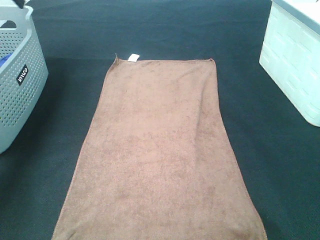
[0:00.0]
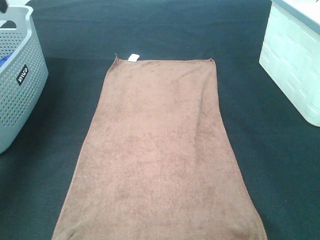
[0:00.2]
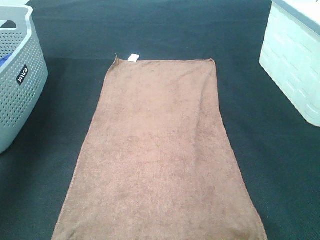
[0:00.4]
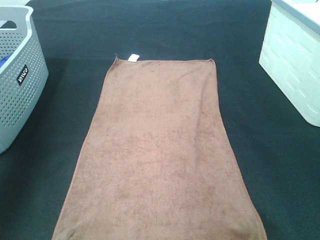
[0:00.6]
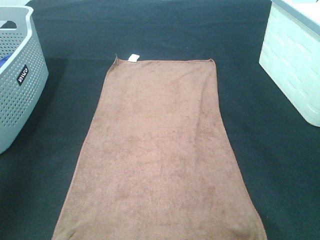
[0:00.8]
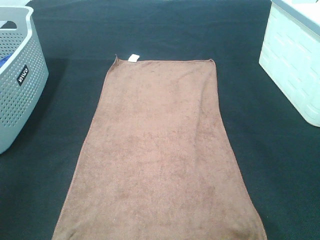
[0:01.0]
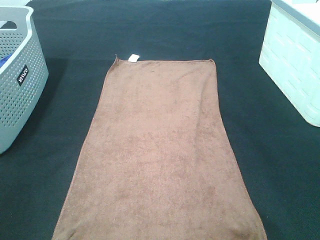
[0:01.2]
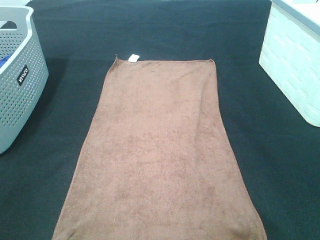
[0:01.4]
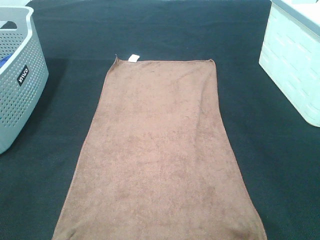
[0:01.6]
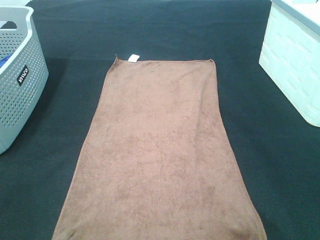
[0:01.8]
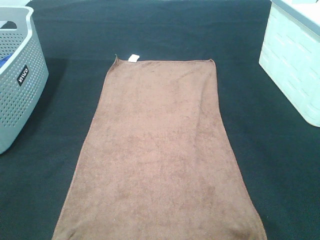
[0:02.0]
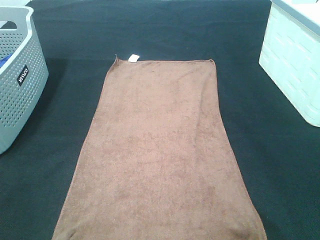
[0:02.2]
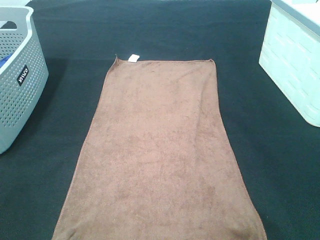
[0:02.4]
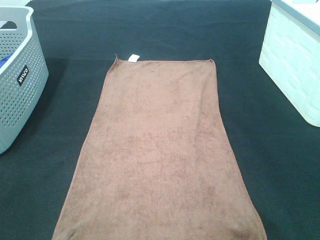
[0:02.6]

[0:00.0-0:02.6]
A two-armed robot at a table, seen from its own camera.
Task of the whole recording: Remove the towel and place it.
0:00.0 to 0:01.2: The left gripper is displaced backward by approximately 40 cm.

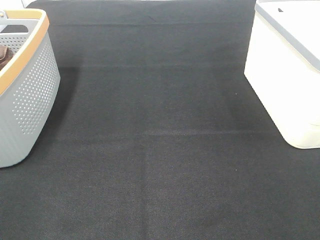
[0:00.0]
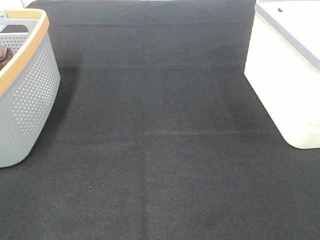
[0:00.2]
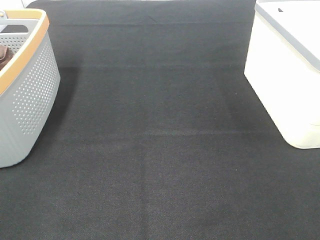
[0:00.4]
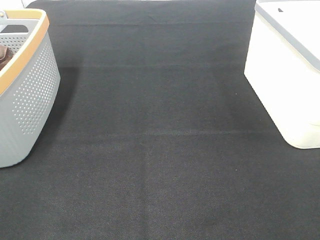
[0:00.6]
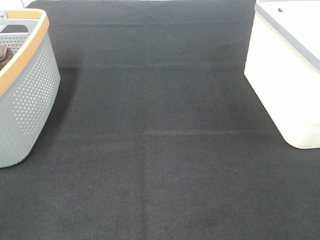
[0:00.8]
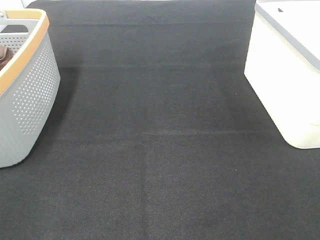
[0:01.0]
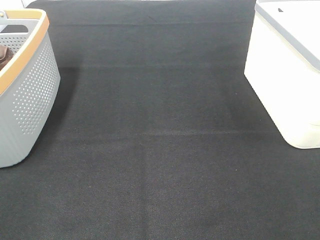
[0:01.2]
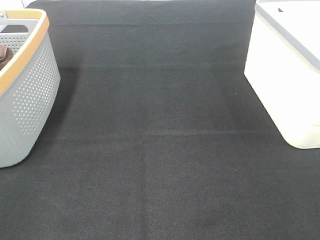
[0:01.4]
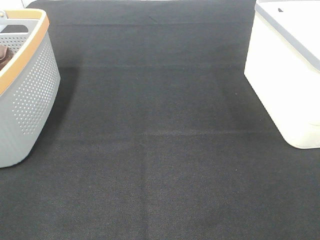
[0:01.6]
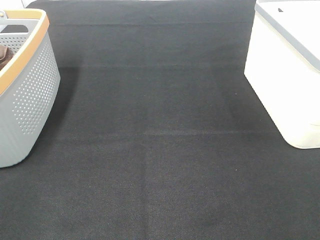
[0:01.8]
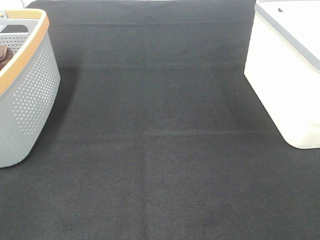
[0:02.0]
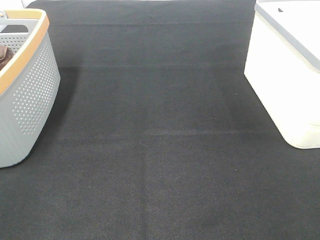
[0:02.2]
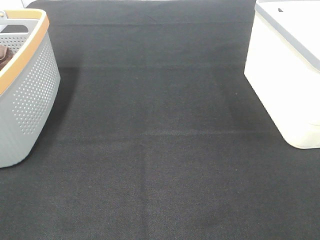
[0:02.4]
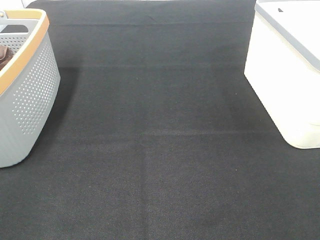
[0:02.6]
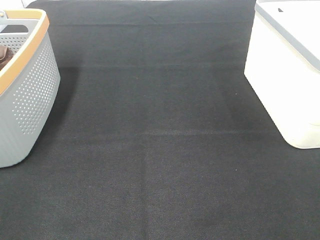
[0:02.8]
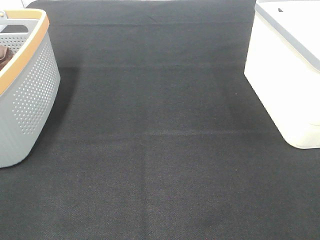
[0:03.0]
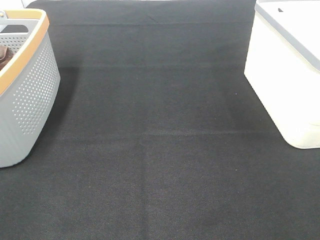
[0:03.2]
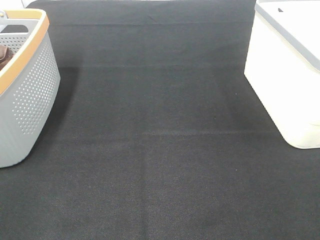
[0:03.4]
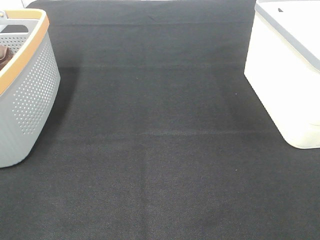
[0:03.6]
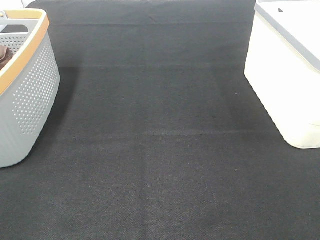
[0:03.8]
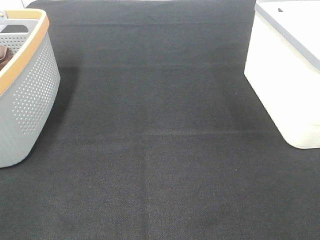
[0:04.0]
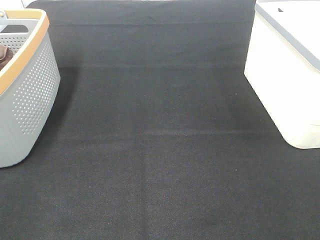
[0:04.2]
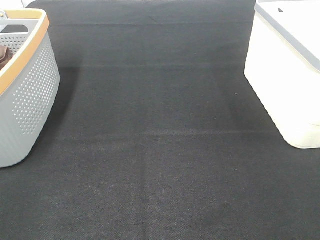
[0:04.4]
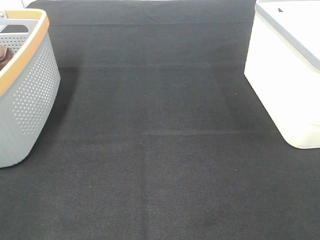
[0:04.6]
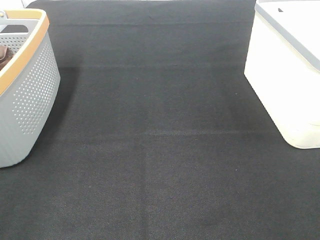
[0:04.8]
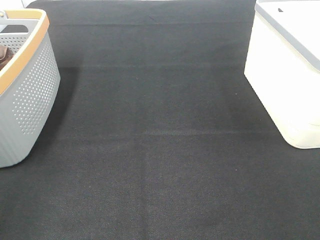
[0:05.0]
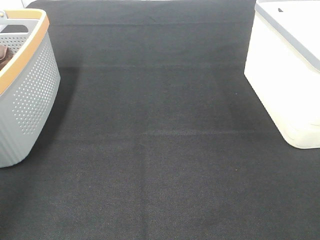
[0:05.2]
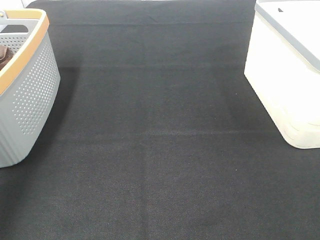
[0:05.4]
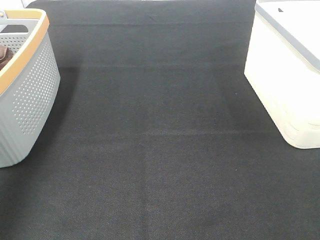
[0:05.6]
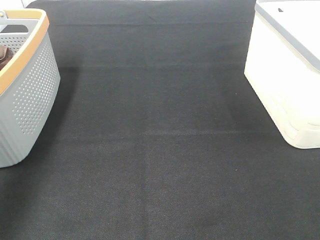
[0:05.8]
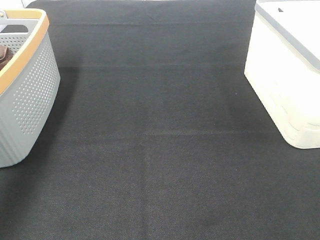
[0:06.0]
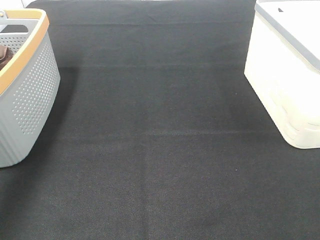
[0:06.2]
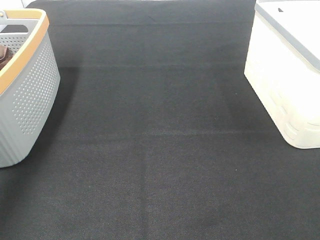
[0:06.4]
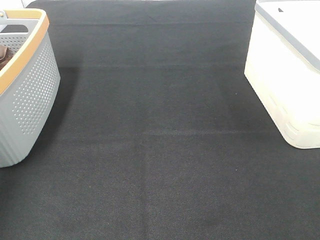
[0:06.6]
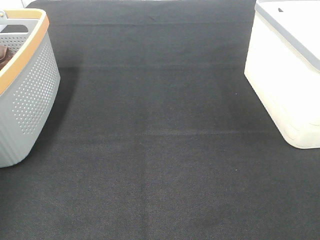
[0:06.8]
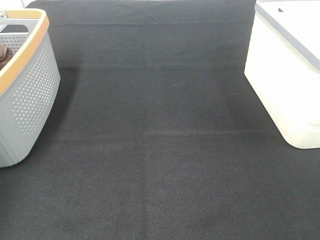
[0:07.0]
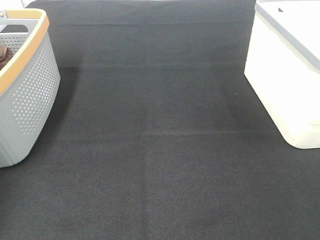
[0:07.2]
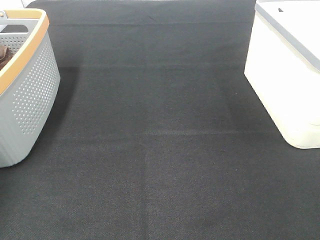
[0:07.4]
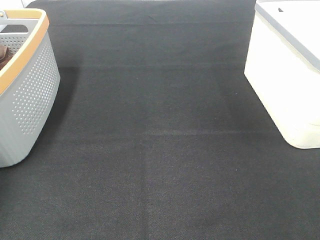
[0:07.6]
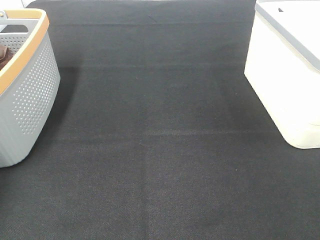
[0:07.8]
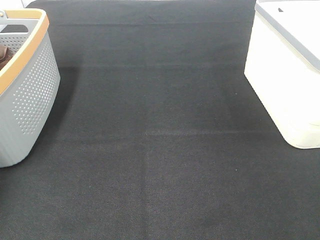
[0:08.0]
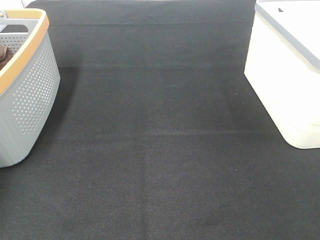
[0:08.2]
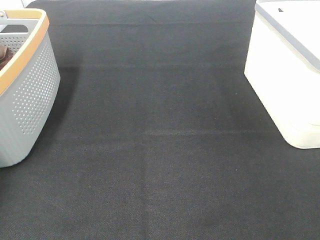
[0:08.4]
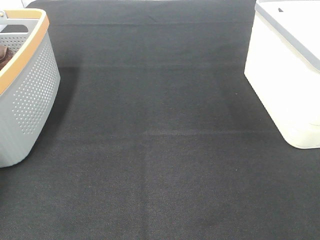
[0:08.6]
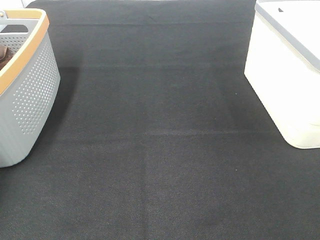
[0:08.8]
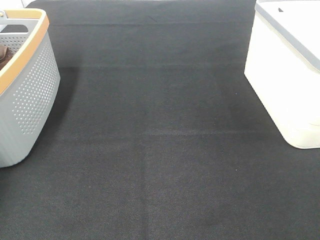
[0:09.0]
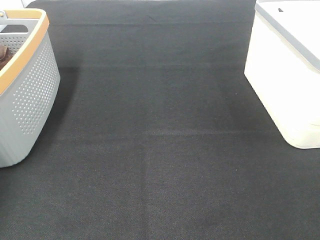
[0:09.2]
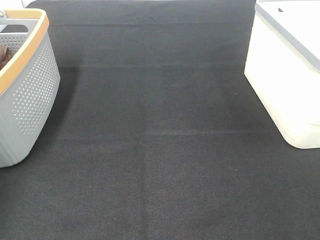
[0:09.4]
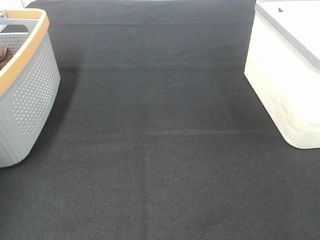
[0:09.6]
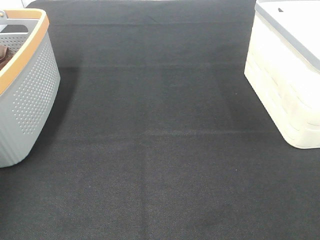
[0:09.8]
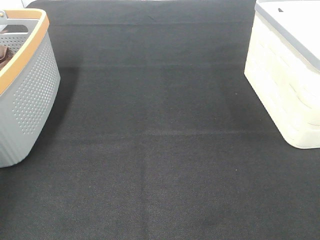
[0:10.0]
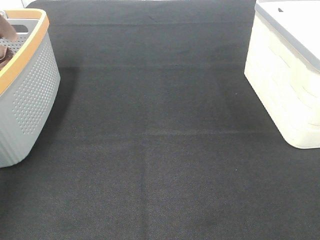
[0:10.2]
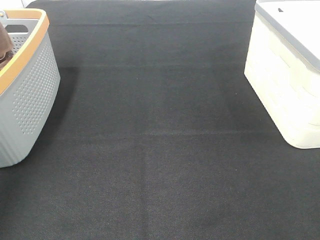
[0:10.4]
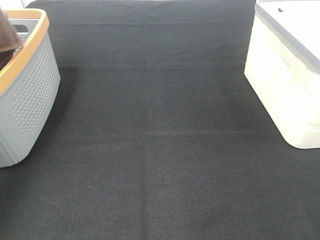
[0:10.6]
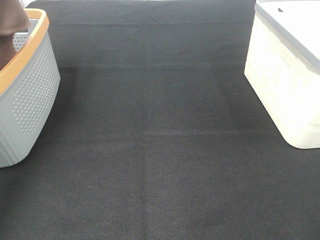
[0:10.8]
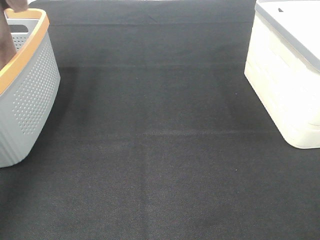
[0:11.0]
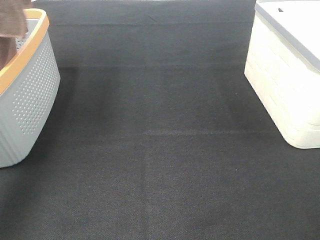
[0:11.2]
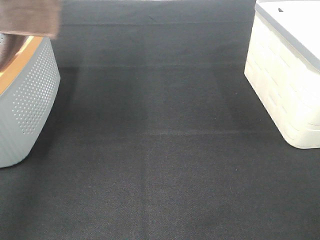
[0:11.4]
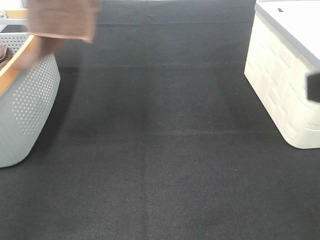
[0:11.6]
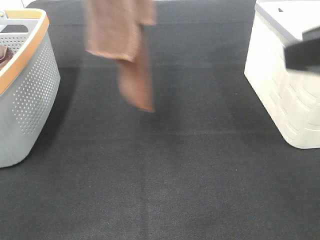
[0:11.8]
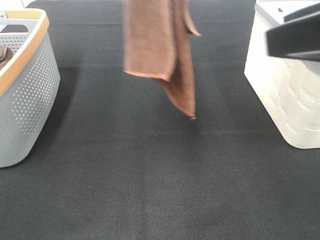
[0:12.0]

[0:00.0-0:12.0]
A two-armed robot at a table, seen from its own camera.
Task of the whole recording: Remove the towel and place it.
Step, 0:09.6 to 0:11.8: Right hand: grab a corner of the brown towel and straighten it.
0:00.0 to 0:04.4: Both grippers stay about where they are.
0:04.4 to 0:06.0: The left gripper travels forward by some 30 cm.
0:06.0 to 0:07.6: The left gripper moves forward, downward and to the left, about 20 cm.
0:09.0 to 0:10.4: The left gripper shifts approximately 35 cm upward and backward.
0:10.4 to 0:12.0: The left gripper heads to the right, covering approximately 25 cm, while the right gripper heads forward, upward and to the left, covering some 15 cm.

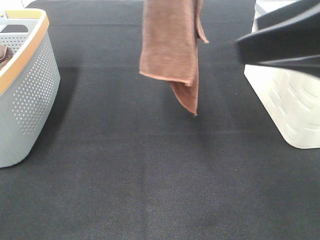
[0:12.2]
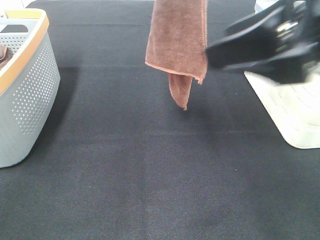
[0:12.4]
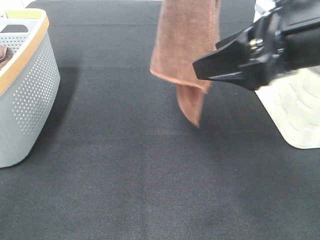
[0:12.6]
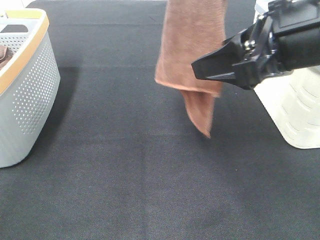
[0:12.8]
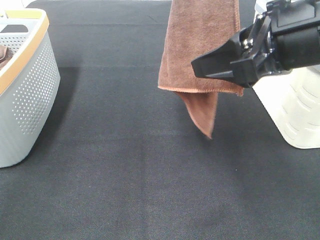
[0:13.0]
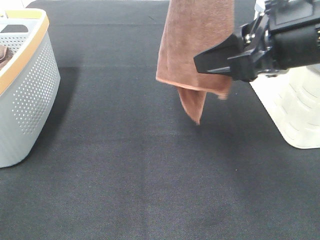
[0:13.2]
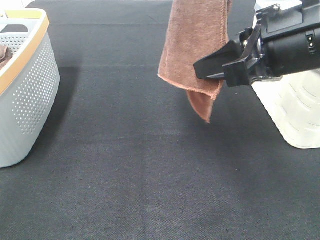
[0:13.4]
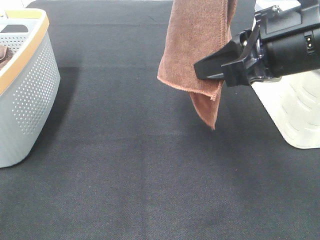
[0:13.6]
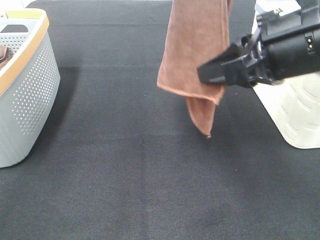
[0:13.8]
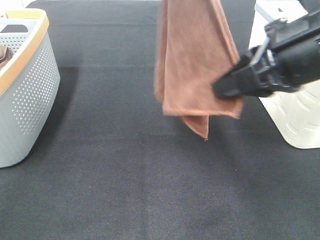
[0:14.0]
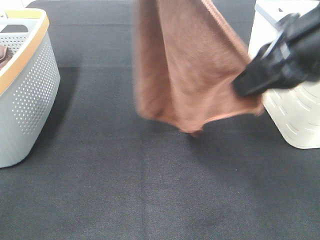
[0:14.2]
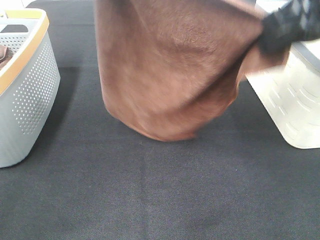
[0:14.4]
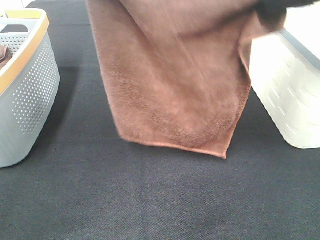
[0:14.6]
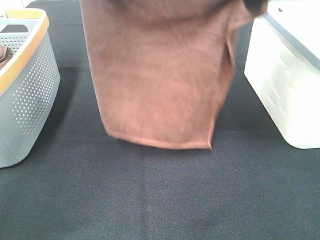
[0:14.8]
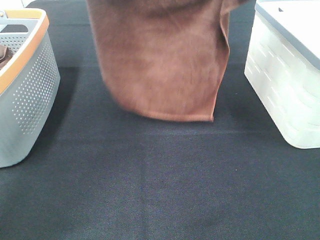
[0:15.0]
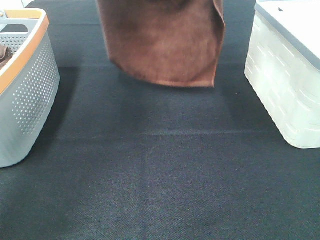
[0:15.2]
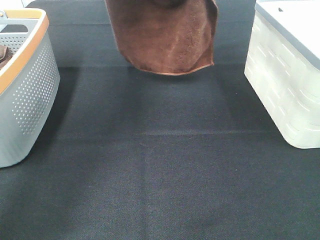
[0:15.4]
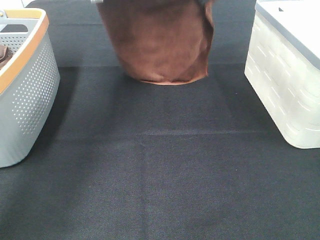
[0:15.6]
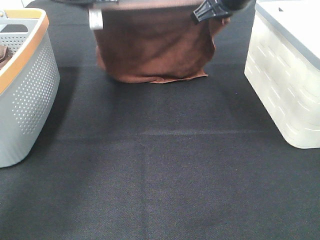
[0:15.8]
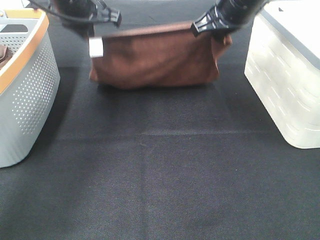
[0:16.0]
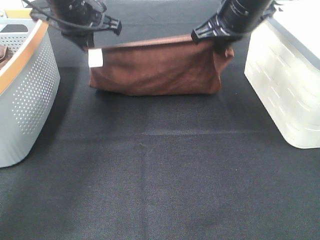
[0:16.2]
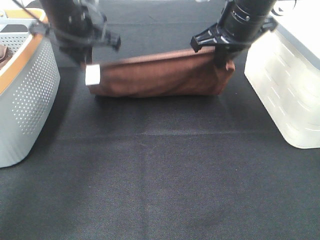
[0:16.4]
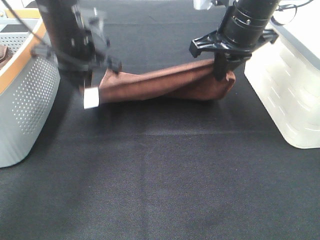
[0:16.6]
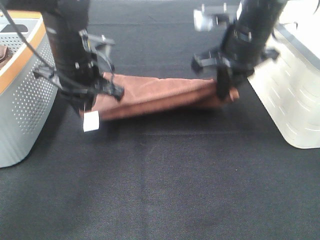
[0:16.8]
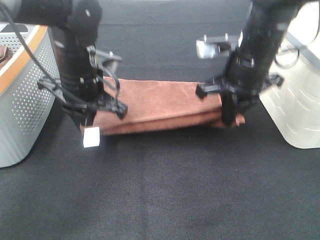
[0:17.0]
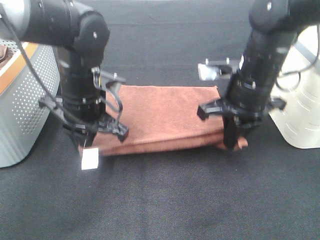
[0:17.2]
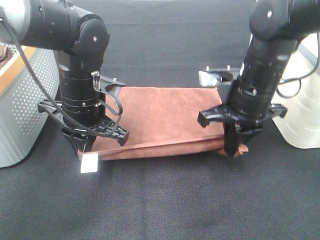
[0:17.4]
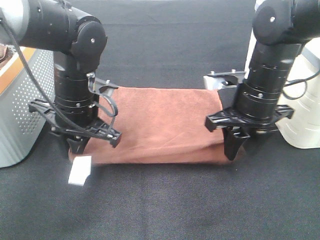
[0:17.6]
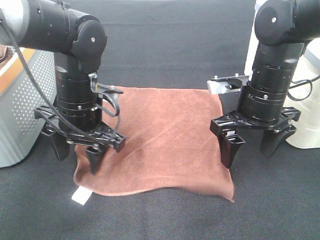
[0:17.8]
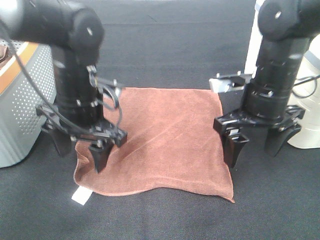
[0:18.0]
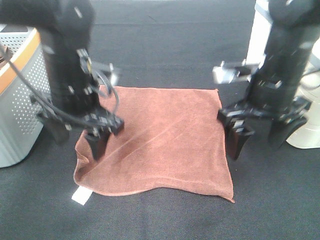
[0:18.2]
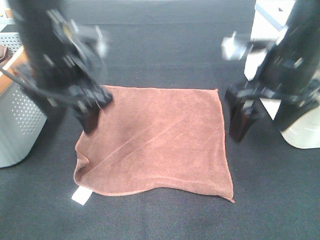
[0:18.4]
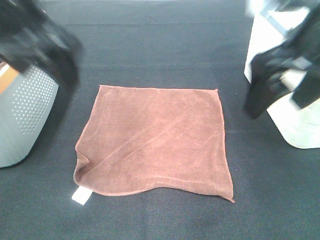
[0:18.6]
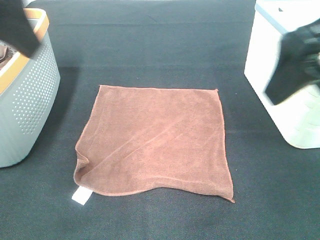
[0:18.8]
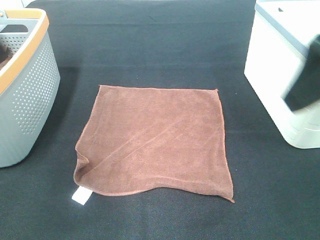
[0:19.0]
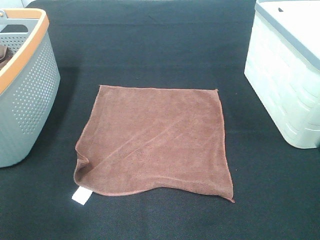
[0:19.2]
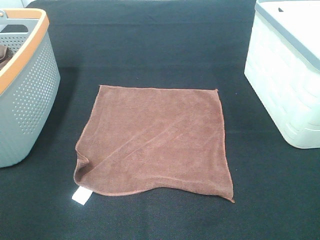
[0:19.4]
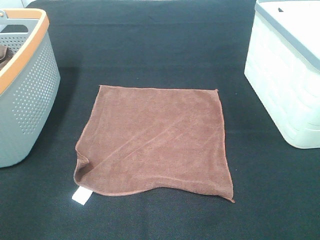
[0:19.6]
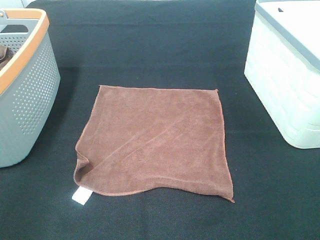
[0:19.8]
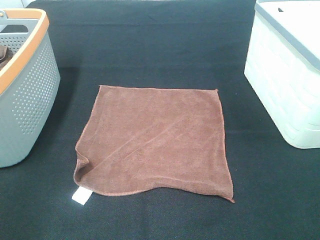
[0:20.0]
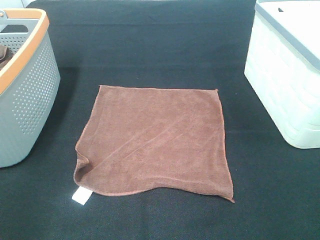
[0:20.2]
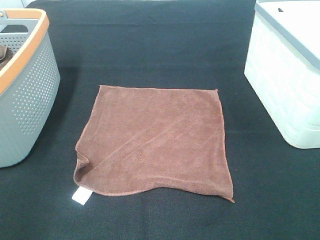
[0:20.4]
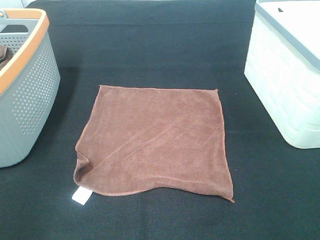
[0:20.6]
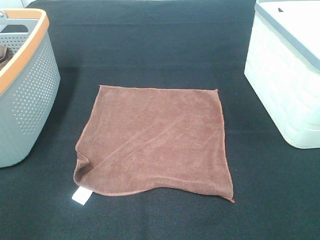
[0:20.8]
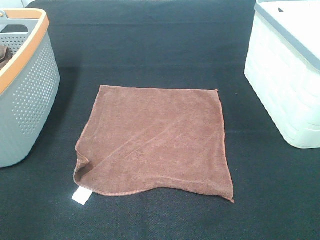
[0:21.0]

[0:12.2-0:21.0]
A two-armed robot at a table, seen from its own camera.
Task of the whole recording: Remove the towel and place it.
Step, 0:12.2 to 0:14.2: Left hand: spread the brown towel flat on the table.
Step, 0:12.2 to 0:14.2: Right hand: spread the brown towel flat on the table.
0:12.2 to 0:13.6: The right gripper goes roughly 5 cm forward and downward, and closes its fingers.
0:13.6 to 0:15.2: The left gripper goes roughly 20 cm forward, downward and to the left, while the right gripper goes about 15 cm forward.
0:15.2 to 0:16.6: The left gripper moves downward, some 15 cm. Meanwhile the right gripper shifts about 10 cm downward.
0:16.6 to 0:18.0: The left gripper is displaced backward by approximately 10 cm, and opens; the right gripper goes some 10 cm downward and backward, and opens its fingers.
0:18.0 to 0:19.6: The right gripper shifts approximately 30 cm backward, upward and to the right; the left gripper goes some 35 cm backward, to the left and upward.
